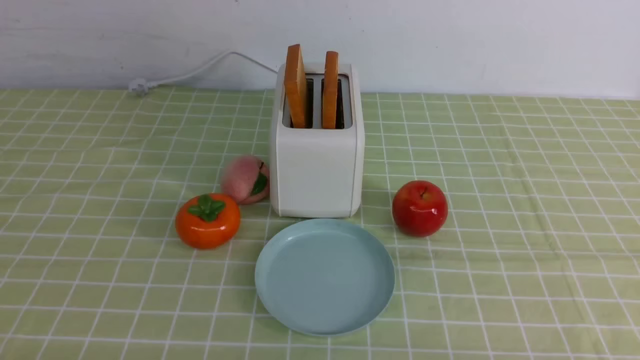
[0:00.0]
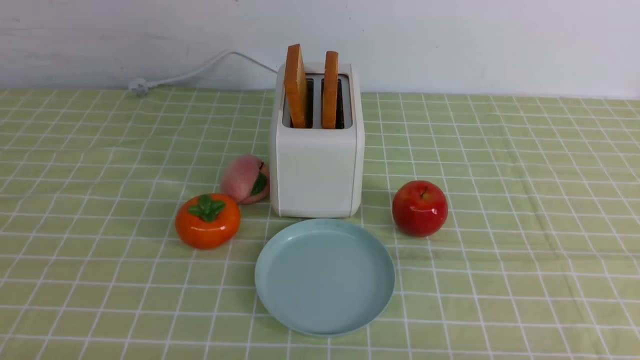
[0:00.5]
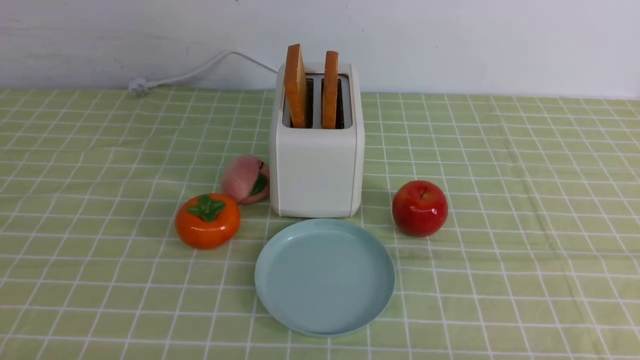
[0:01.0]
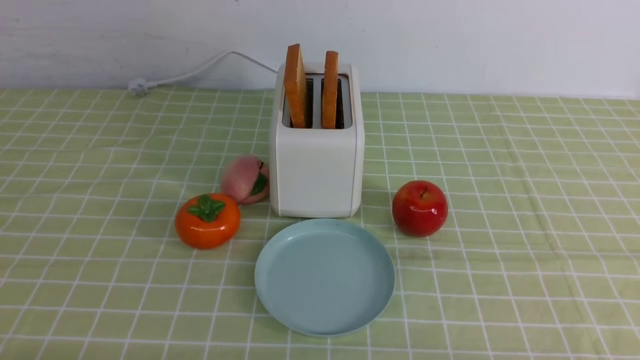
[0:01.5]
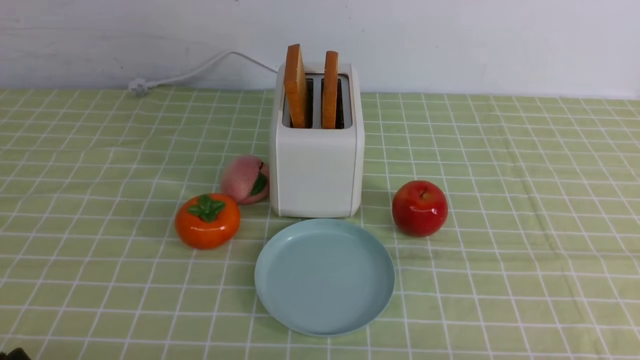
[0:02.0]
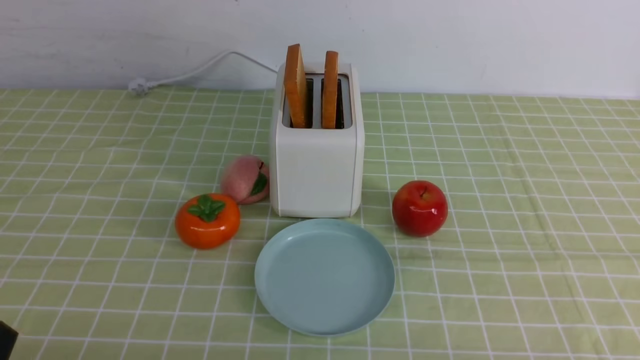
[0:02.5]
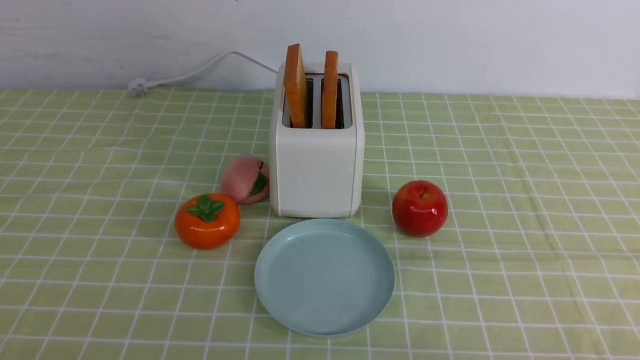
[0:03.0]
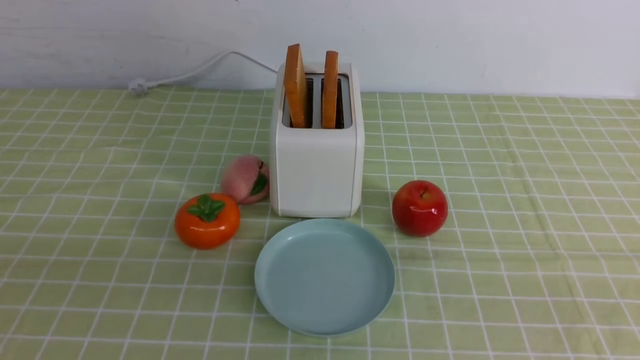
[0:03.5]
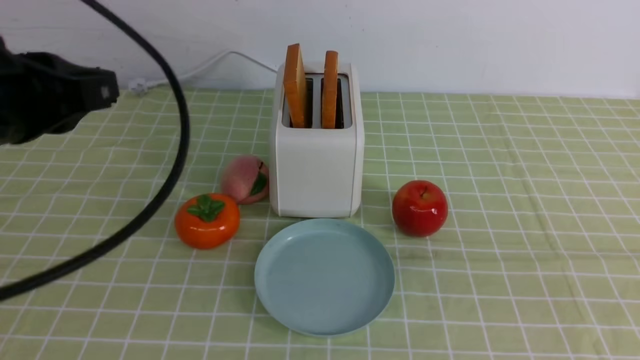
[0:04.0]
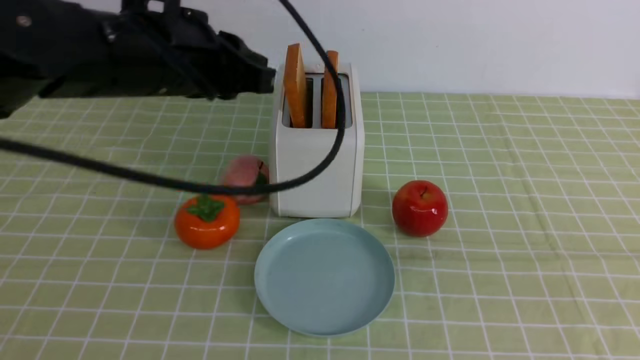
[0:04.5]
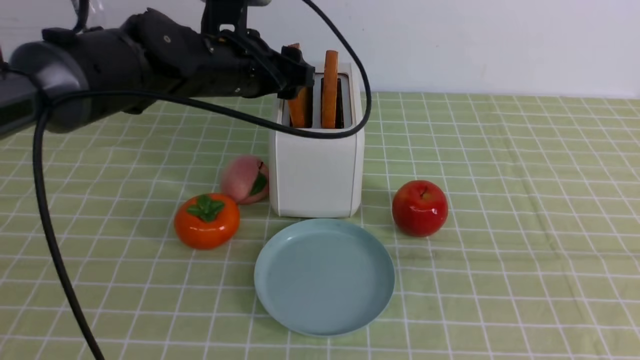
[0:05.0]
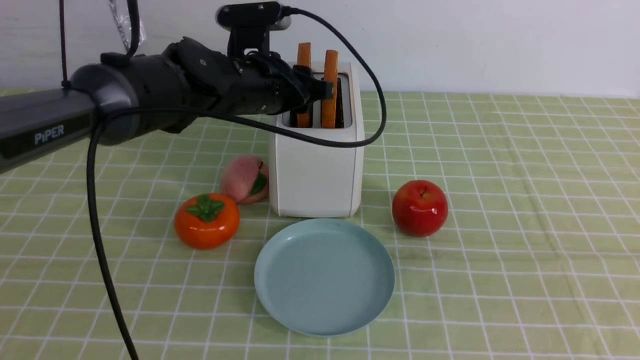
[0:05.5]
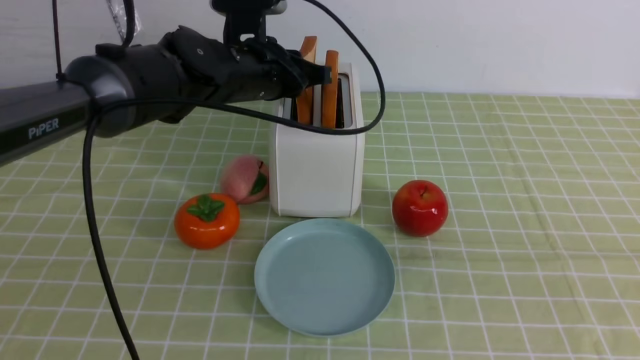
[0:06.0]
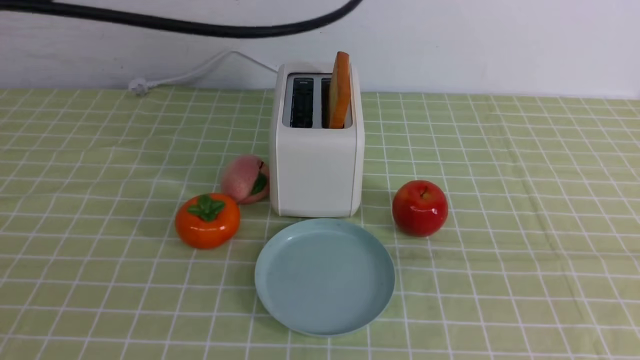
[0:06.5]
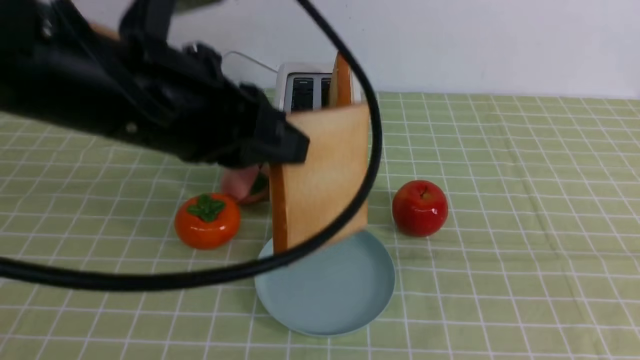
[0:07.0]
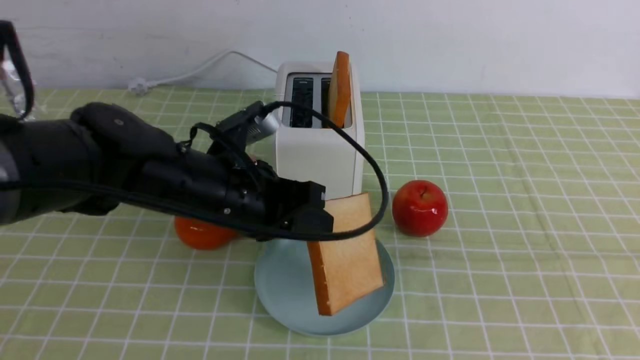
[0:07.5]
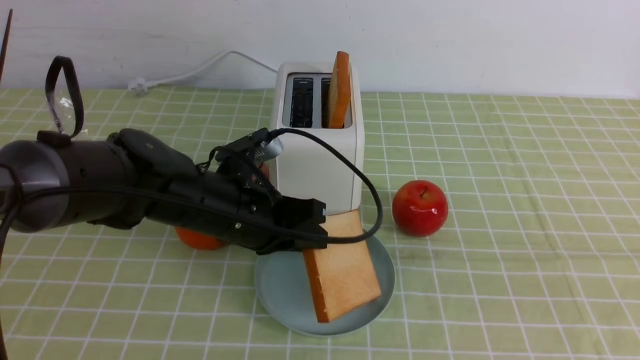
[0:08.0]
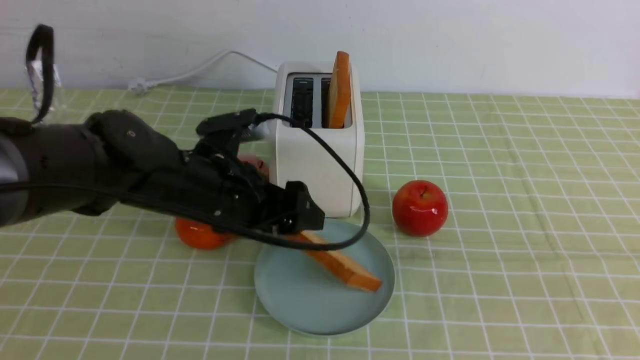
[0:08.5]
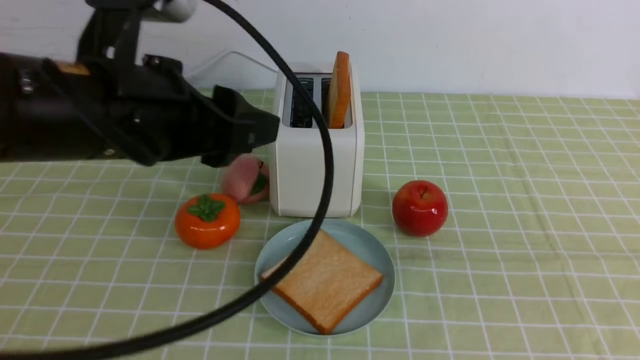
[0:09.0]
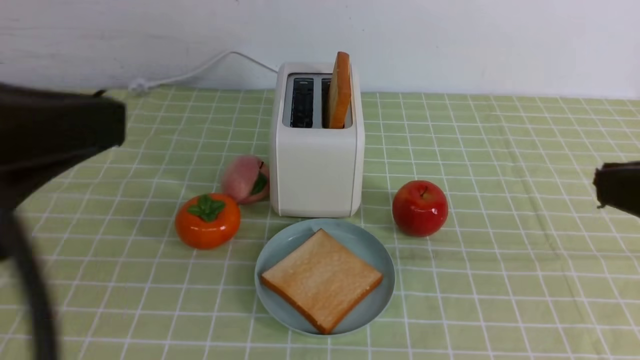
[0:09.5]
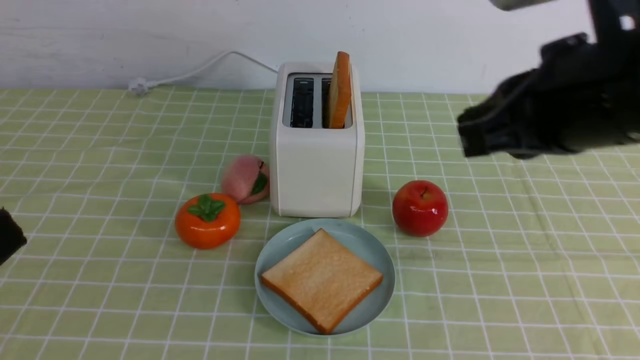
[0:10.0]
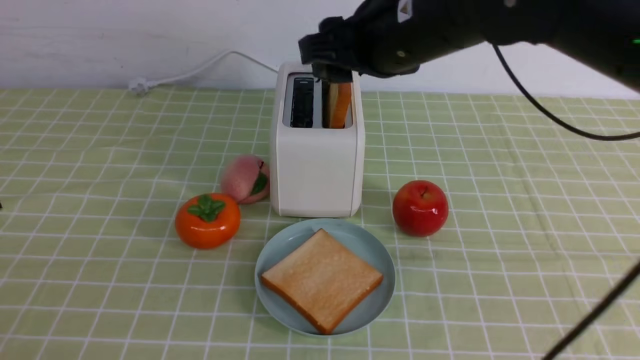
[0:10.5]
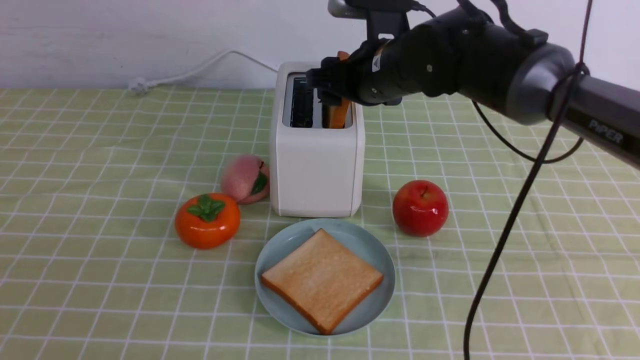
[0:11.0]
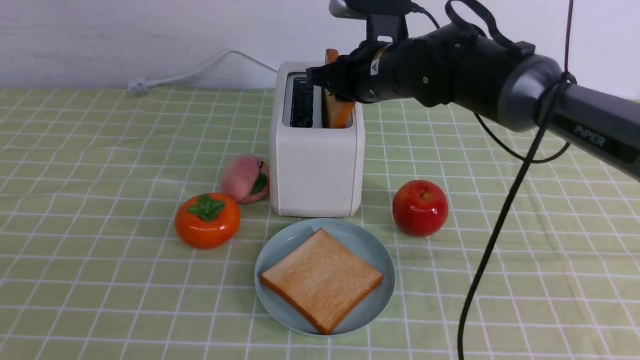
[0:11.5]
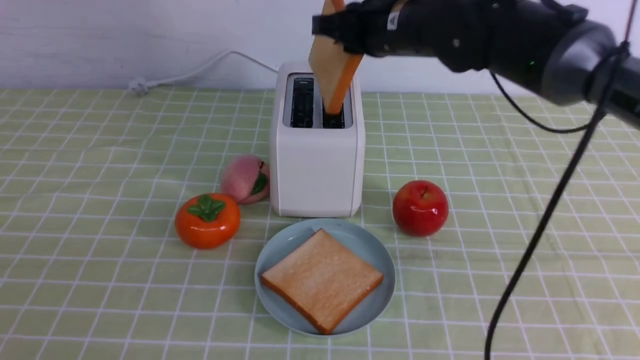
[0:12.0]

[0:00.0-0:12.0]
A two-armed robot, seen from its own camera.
Task of the whole recording: take toasted bread from bread machine on green coffee tablecloth place on plate.
Step, 0:00.0 to 0:06.0: use the left arm to take out a slice of bread.
Step, 0:06.5 to 0:09.5: use the left arm to put a slice of bread into the empty plate.
0:02.0 to 0:04.0: The left gripper moves upward and forward, approximately 25 cm.
0:04.0 to 0:06.0: The left gripper shifts approximately 25 cm forward and to the right, and opens, then closes again.
0:06.0 to 0:08.0: The left gripper moves backward and downward, about 15 cm.
0:08.0 to 0:10.0: The left gripper heads backward, upward and to the left, covering roughly 35 cm, and closes its fingers; the right gripper goes roughly 20 cm forward and to the left.
0:10.0 to 0:12.0: The right gripper goes some 20 cm forward, and opens, then closes once more.

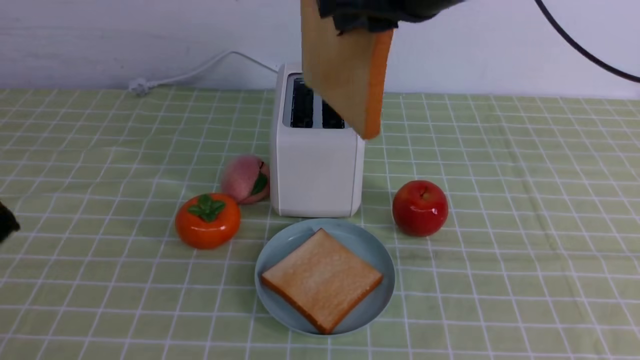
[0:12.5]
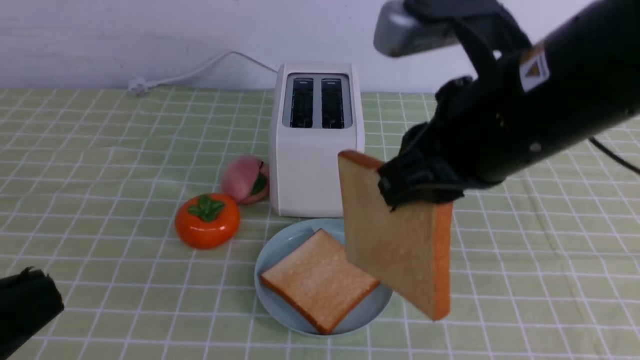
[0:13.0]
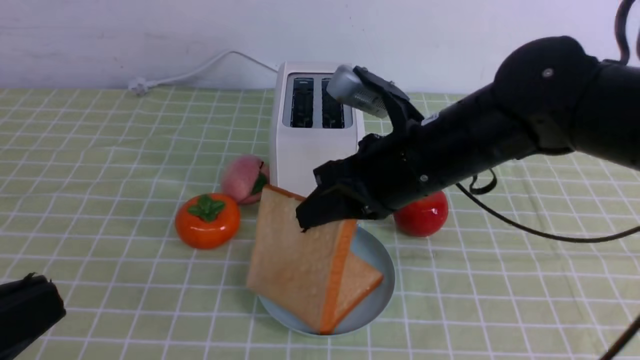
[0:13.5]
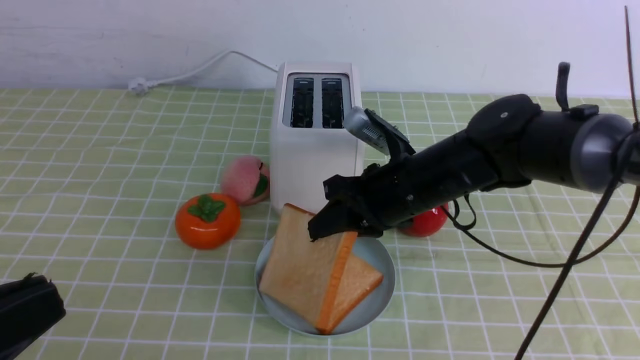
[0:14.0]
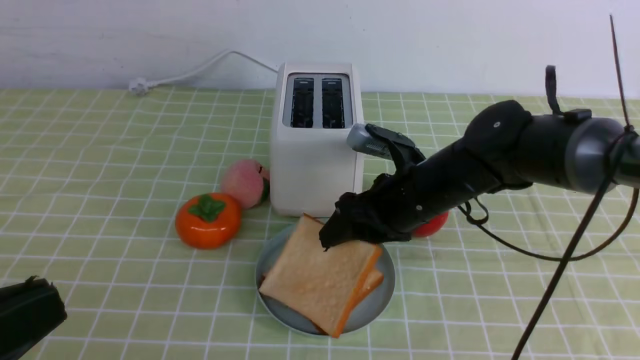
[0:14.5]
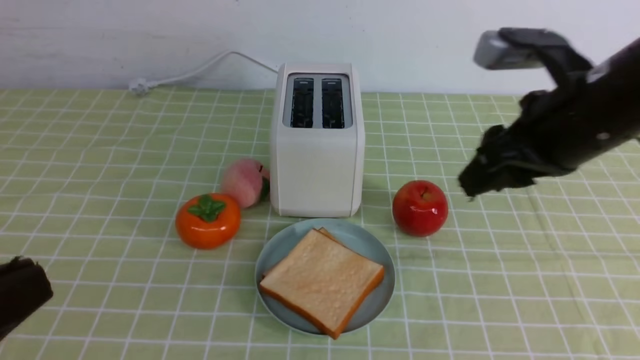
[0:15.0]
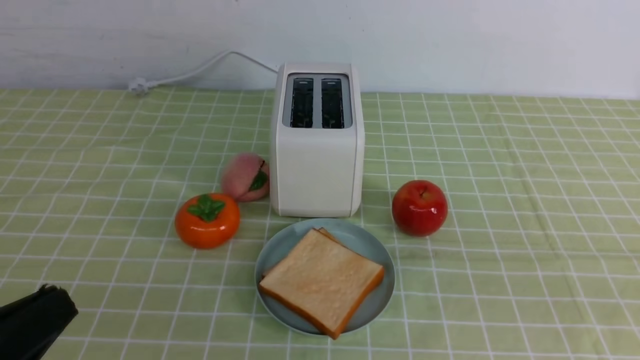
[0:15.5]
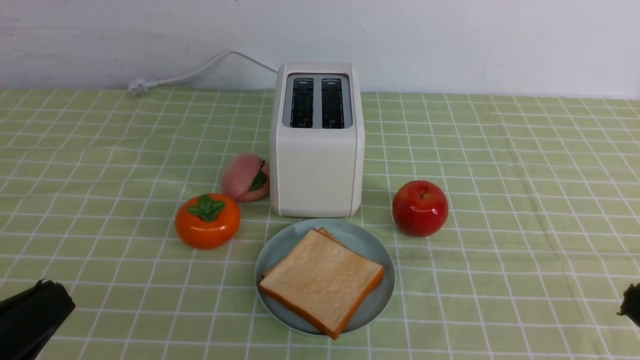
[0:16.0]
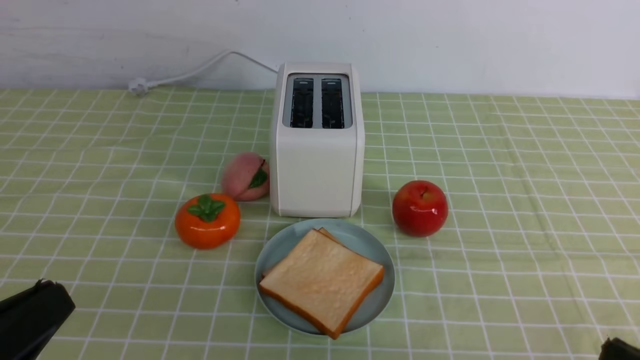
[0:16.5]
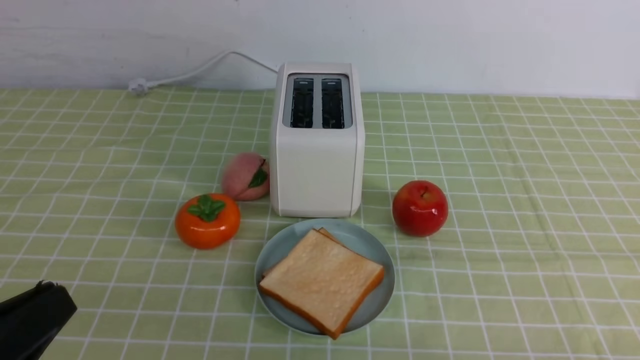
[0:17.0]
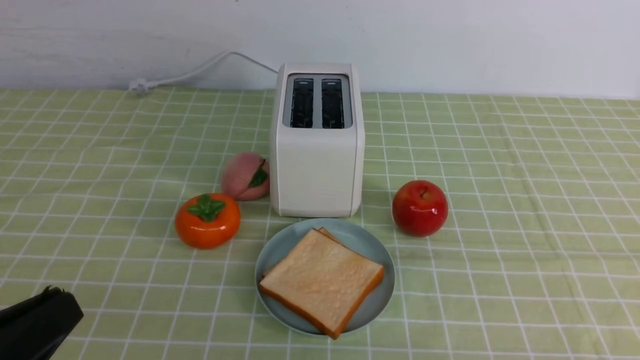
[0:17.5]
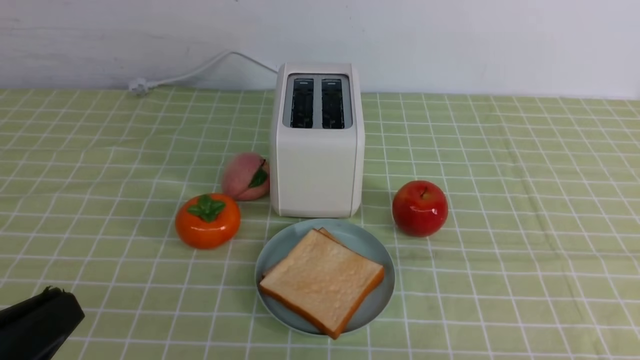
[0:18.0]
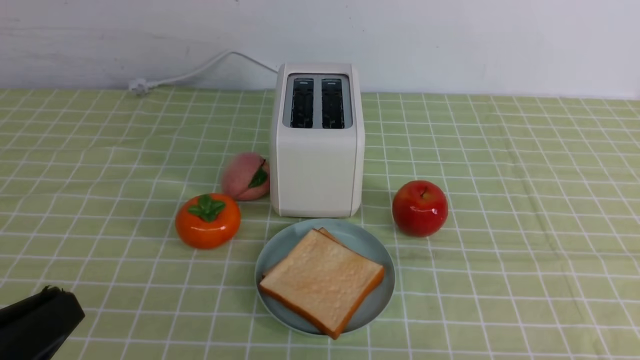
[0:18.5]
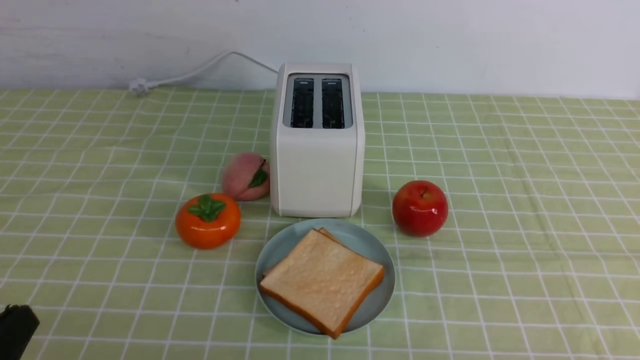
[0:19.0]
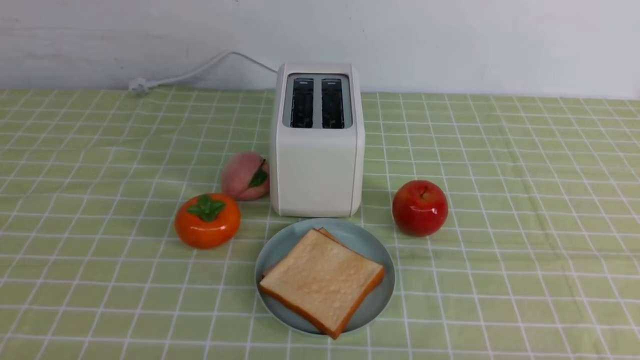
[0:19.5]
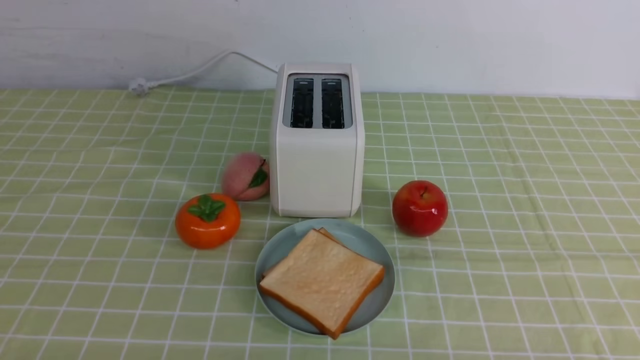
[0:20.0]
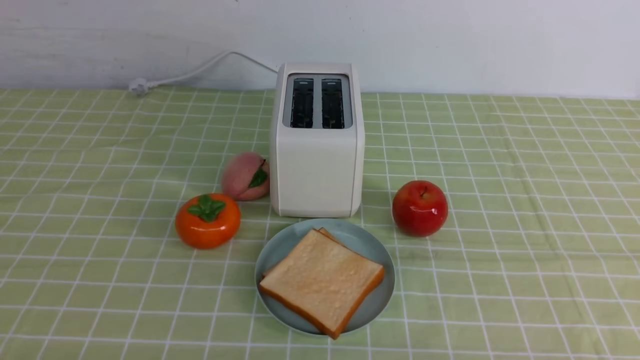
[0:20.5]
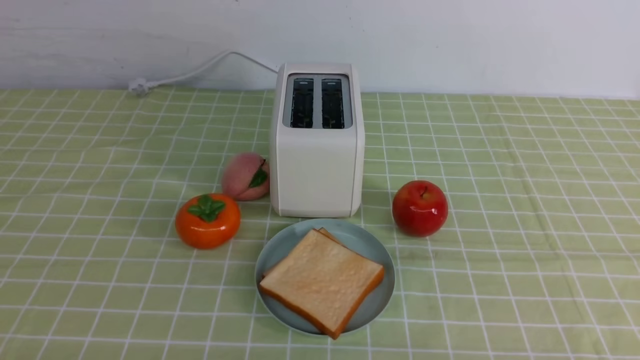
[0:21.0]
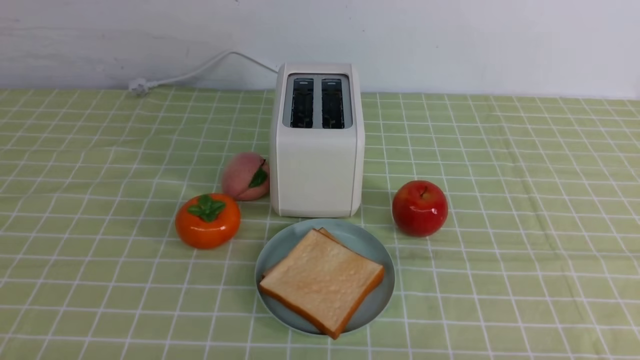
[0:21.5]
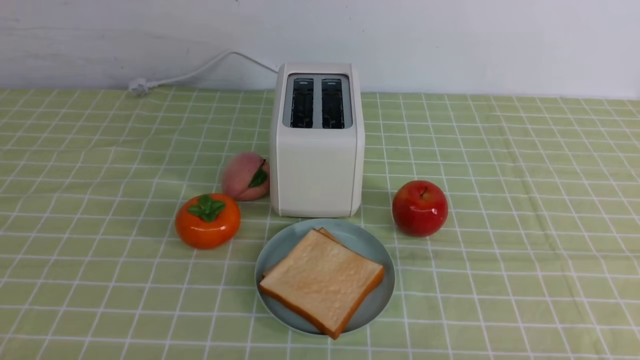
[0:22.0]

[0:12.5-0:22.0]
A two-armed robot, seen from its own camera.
Task of the whole recording: take toasted bread from bread machine on green coffee tablecloth place on plate.
Step, 0:12.5 to 0:14.5: use the right arm to put a slice of bread into the plate.
0:12.5 to 0:14.5: The right gripper heads downward, covering roughly 25 cm, and opens up.
0:14.5 to 0:16.5: The left gripper shifts roughly 5 cm downward; the right gripper is displaced backward and to the right by about 30 cm, and closes.
0:18.0 to 0:20.0: The left gripper heads downward, covering roughly 10 cm.
0:20.0 to 0:22.0: Neither gripper changes place.
